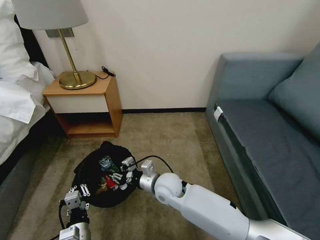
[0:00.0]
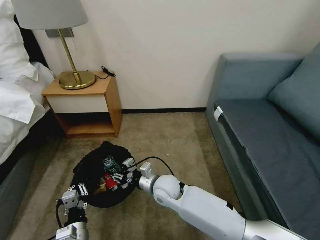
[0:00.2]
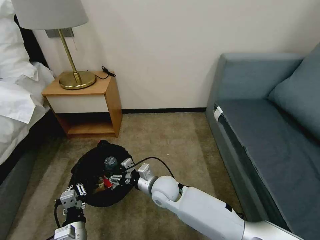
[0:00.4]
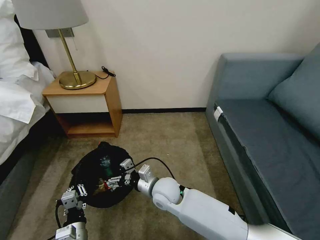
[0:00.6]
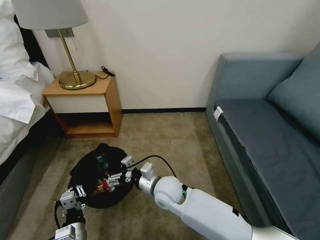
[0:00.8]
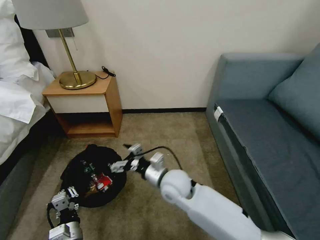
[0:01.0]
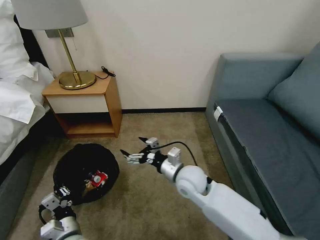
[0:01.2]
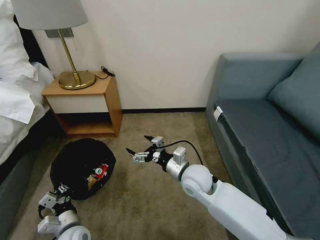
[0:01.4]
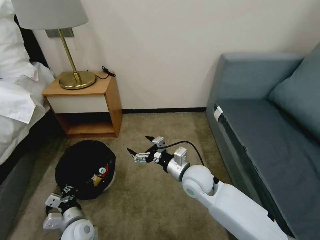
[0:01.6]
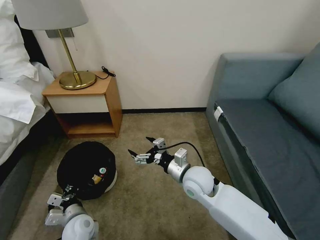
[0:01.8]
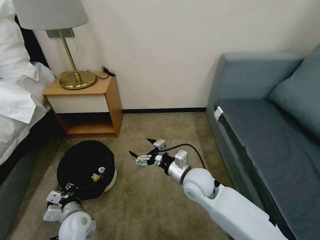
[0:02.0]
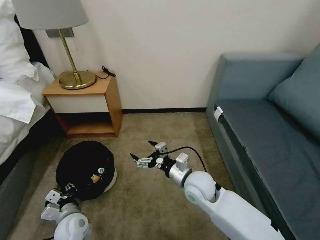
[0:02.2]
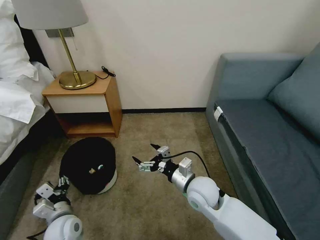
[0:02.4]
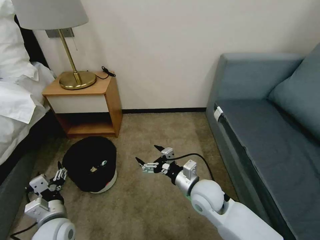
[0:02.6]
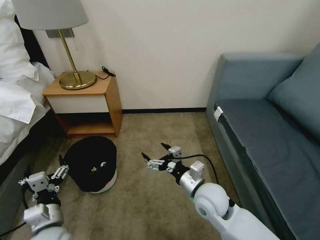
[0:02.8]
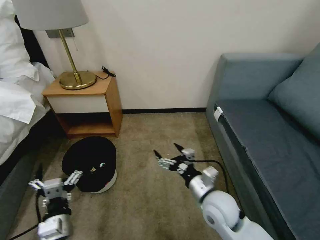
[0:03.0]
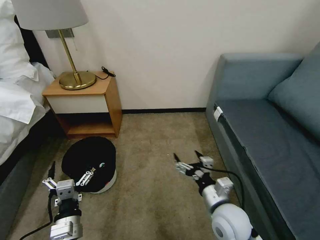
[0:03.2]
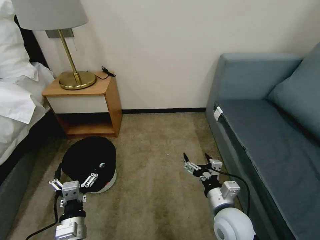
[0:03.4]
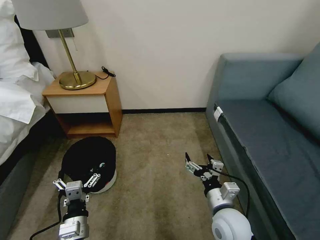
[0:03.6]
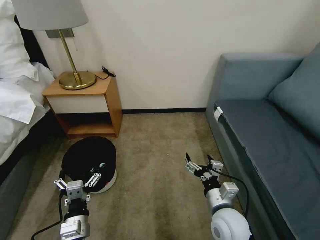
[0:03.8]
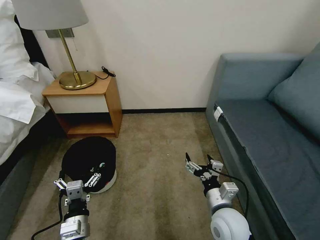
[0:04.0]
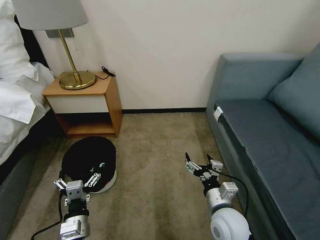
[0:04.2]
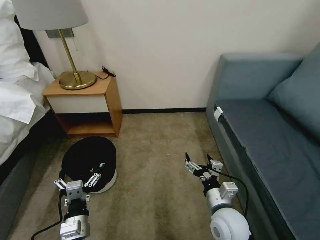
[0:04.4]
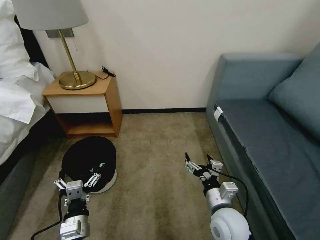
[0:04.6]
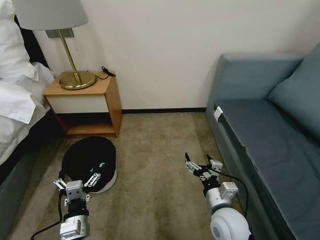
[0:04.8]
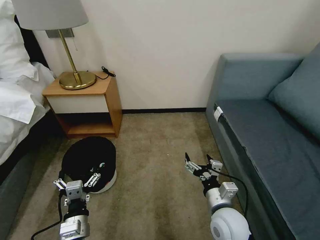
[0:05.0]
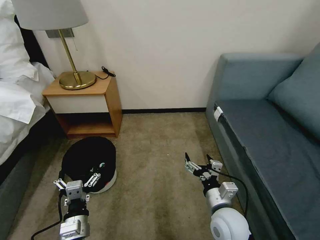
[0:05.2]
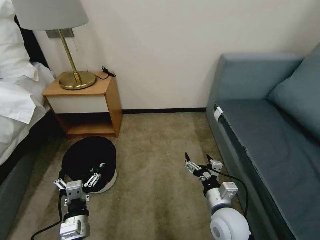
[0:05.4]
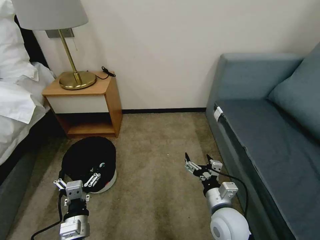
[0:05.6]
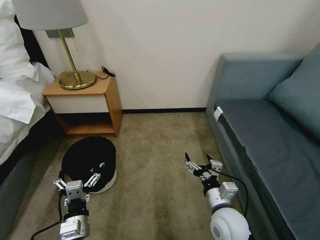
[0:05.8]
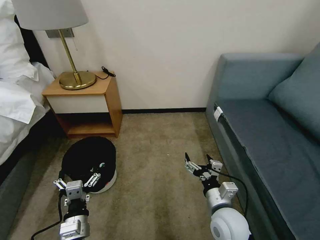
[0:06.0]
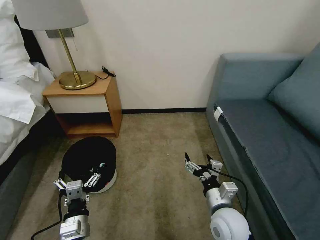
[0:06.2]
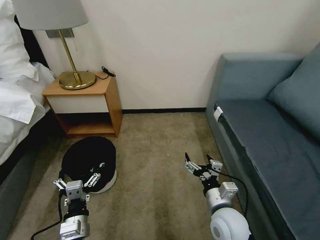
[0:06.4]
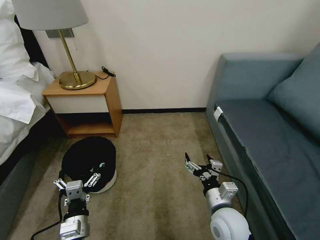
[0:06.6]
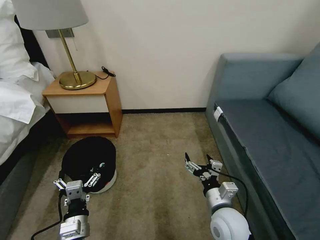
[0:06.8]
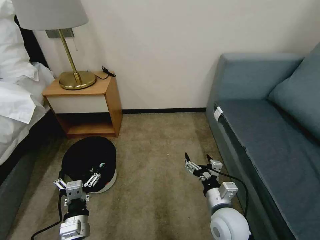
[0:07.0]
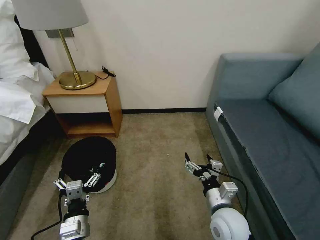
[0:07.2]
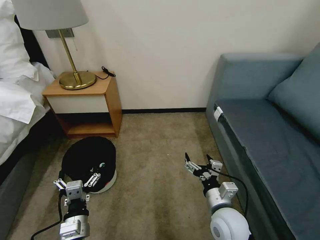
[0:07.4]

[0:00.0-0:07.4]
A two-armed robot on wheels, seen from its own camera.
Task of the whole recording: Pick up the trash bin, then pick up the garbage on the floor and place it into the trash bin.
0:00.0 to 0:01.4: The left gripper shifts by some 5 cm, while the right gripper heads to the right and upward, covering approximately 10 cm, and opens its fingers.
0:01.4 to 0:03.0: The left gripper shifts approximately 10 cm upward, and opens up. Meanwhile the right gripper goes roughly 10 cm backward and to the right.
0:03.0 to 0:04.4: The right gripper moves some 5 cm.
0:04.4 to 0:07.4: Both grippers stay about where they are.

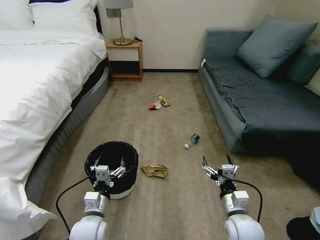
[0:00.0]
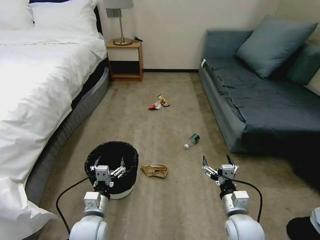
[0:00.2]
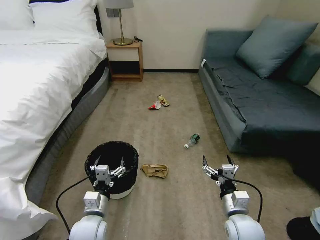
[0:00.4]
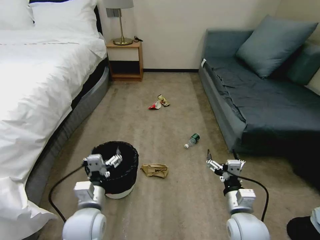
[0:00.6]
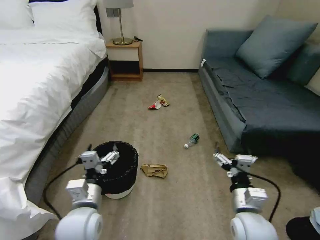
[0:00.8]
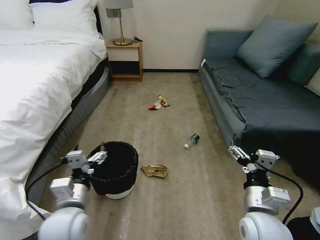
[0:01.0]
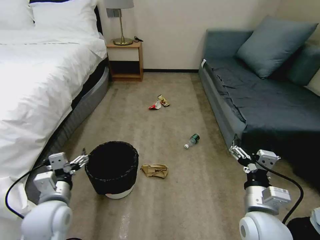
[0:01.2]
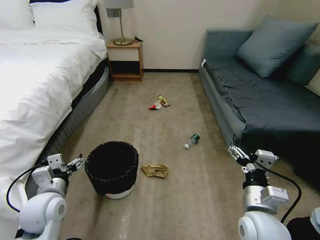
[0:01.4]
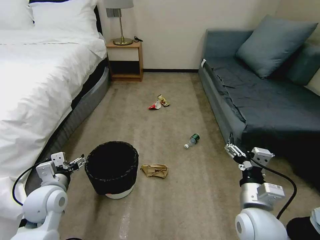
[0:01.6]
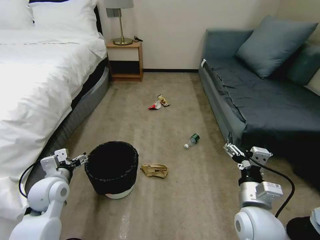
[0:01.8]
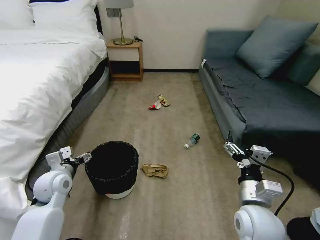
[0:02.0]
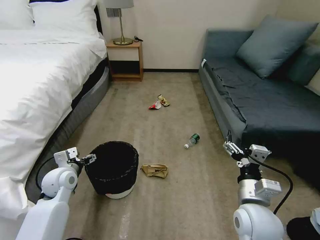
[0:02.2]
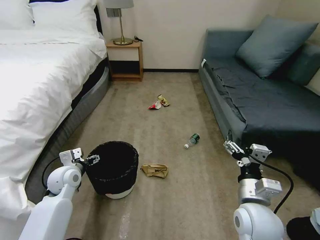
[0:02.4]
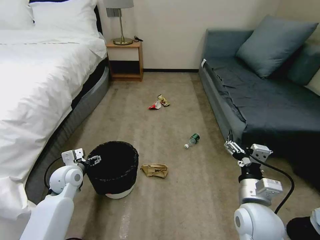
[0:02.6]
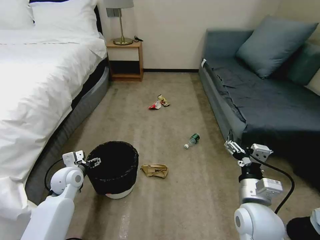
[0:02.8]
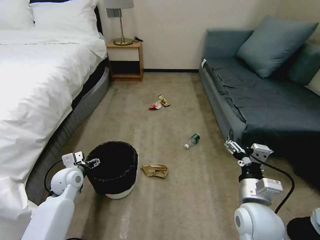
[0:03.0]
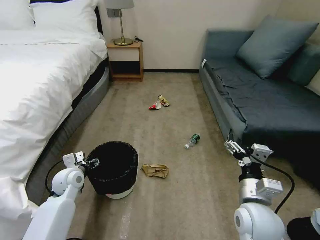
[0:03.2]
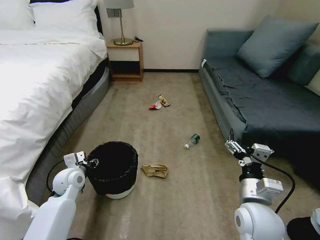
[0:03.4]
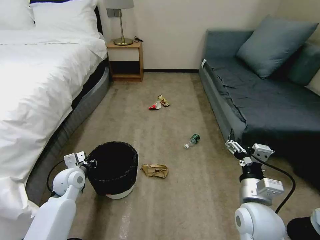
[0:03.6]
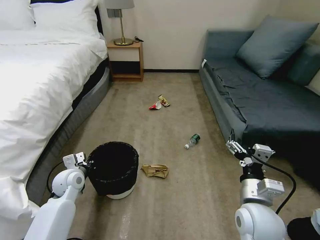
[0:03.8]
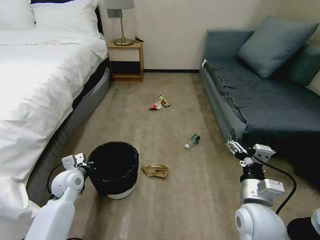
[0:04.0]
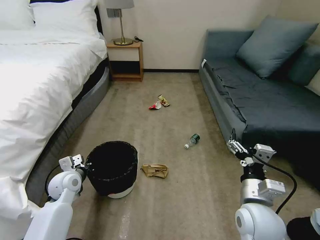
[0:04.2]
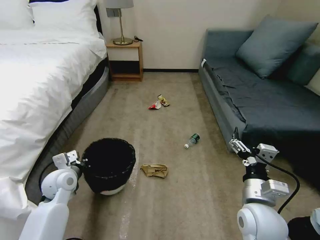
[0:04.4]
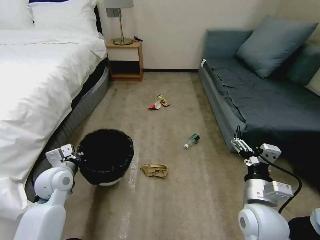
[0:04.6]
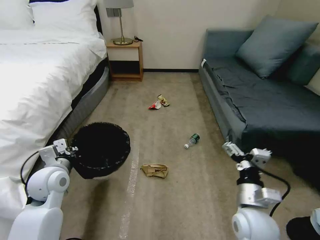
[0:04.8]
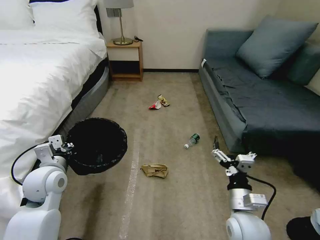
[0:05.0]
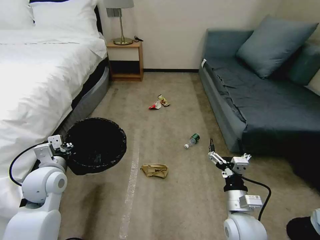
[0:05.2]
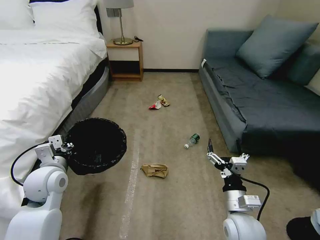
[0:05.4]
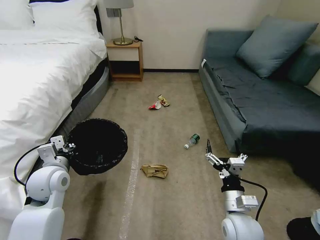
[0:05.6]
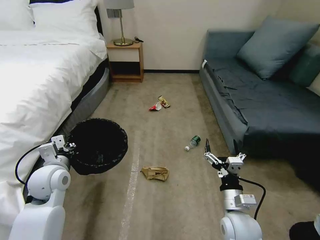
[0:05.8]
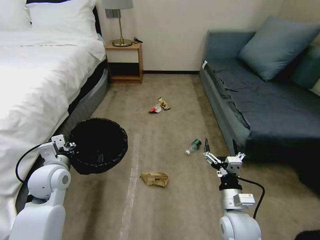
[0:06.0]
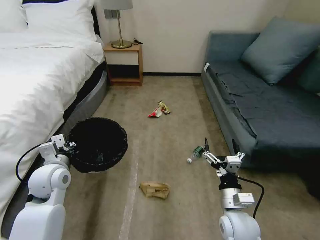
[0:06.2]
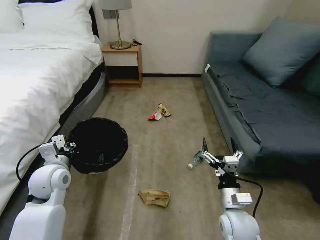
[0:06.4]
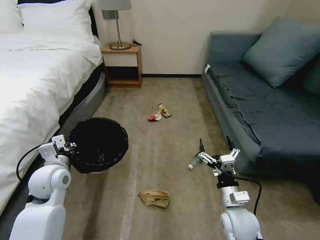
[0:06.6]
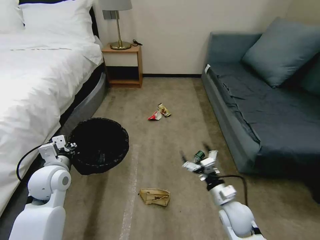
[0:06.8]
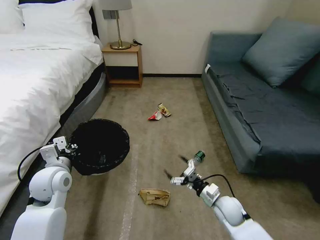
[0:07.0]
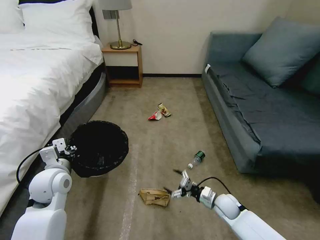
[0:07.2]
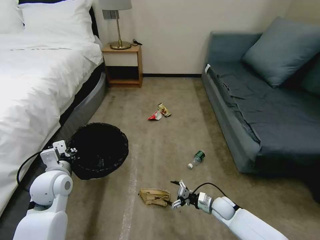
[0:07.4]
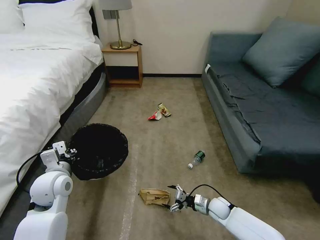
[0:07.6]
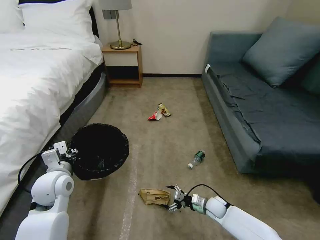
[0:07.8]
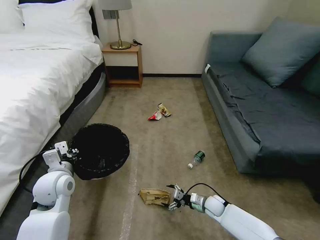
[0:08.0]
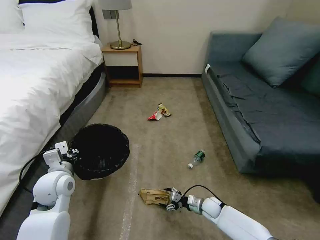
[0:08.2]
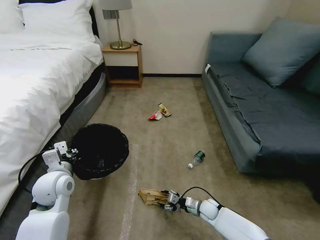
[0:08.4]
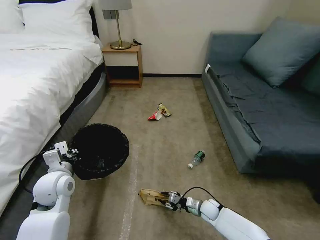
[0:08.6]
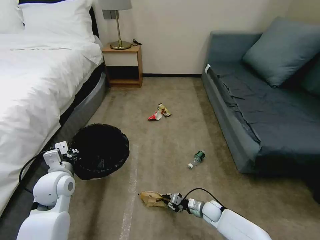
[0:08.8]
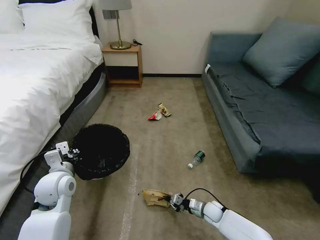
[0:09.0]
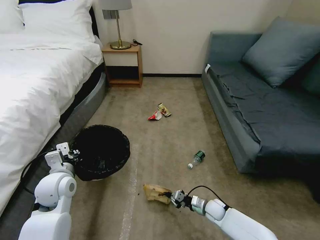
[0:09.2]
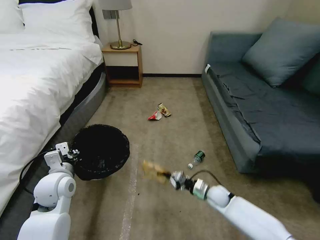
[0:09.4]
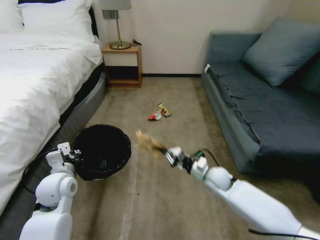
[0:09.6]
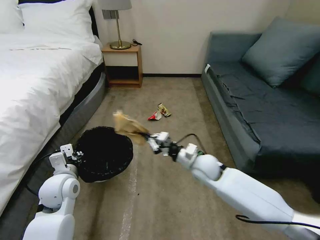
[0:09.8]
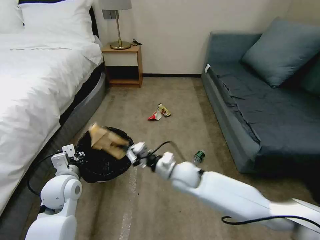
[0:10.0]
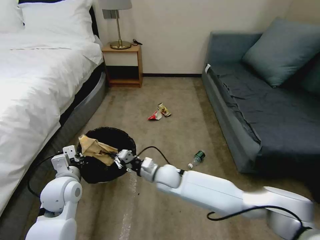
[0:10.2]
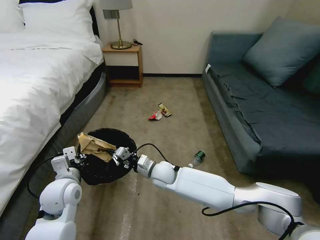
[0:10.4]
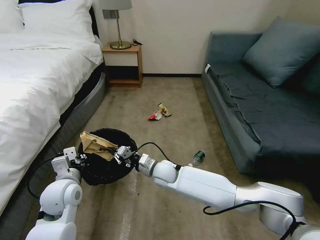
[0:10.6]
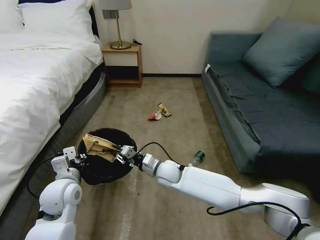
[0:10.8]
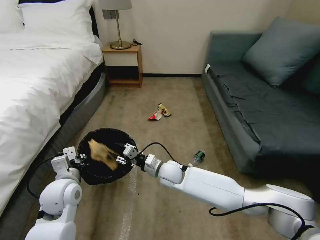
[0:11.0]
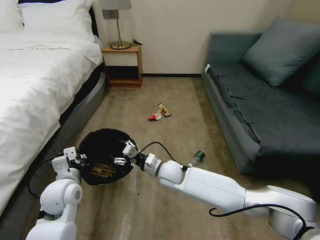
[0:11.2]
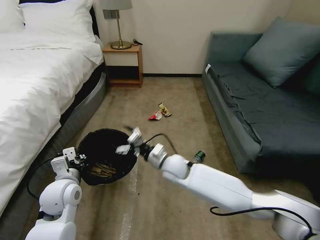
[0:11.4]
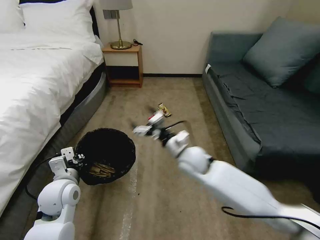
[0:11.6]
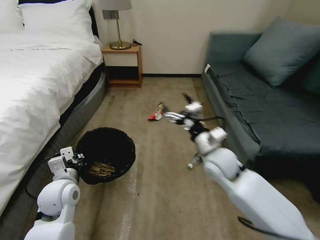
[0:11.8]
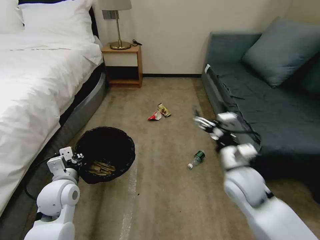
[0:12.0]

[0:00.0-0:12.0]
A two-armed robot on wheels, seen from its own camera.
Task of the whole recording: Pick up the trash bin, then pick up the garbage on the floor and place it into the trash bin.
0:01.6 to 0:03.0: The left gripper travels forward and downward by about 10 cm.
0:03.0 to 0:04.4: The left gripper closes up.
0:04.4 to 0:06.0: The right gripper heads downward, covering approximately 10 cm; the left gripper travels upward by about 5 cm.
0:06.0 to 0:07.6: The right gripper goes some 25 cm downward and forward.
0:07.6 to 0:09.0: The right gripper closes up.
0:09.0 to 0:10.4: The right gripper moves to the left and upward, some 30 cm.
0:10.4 to 0:12.0: The right gripper heads to the right, upward and backward, covering roughly 30 cm, and opens its fingers.

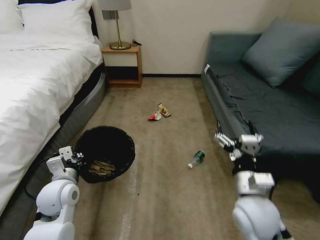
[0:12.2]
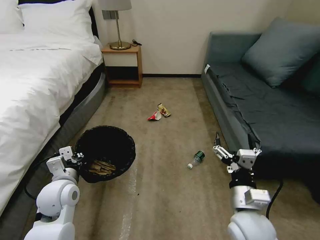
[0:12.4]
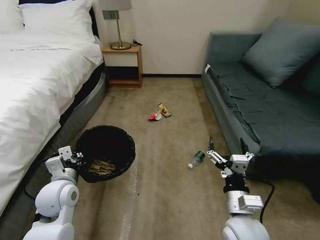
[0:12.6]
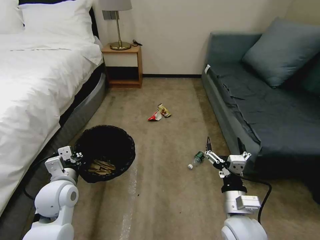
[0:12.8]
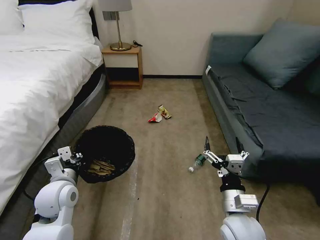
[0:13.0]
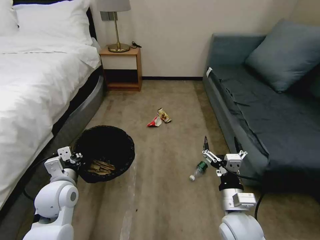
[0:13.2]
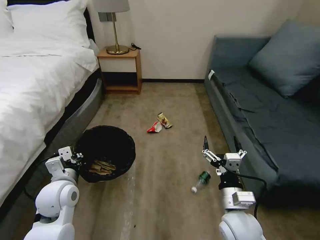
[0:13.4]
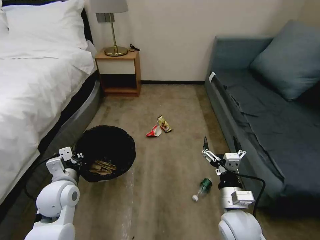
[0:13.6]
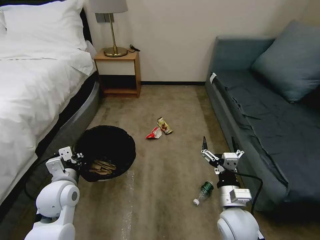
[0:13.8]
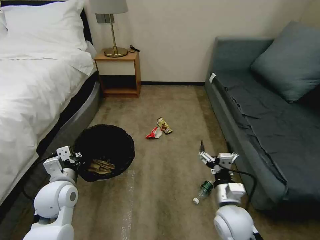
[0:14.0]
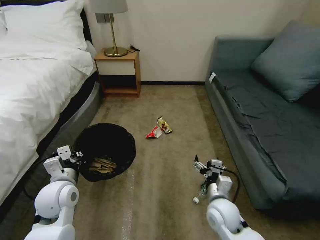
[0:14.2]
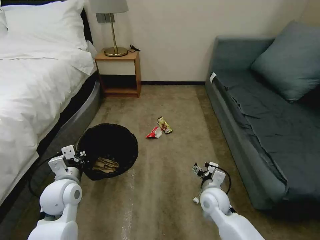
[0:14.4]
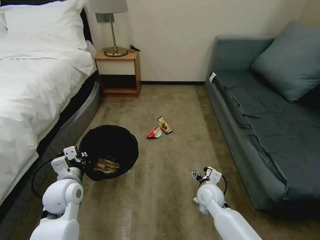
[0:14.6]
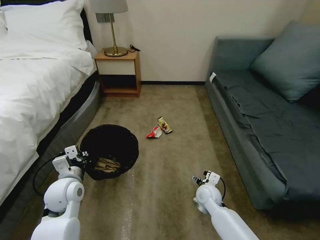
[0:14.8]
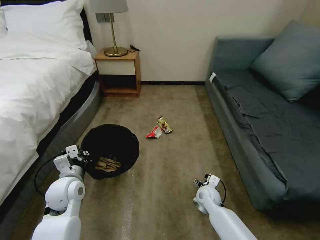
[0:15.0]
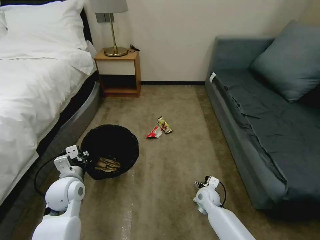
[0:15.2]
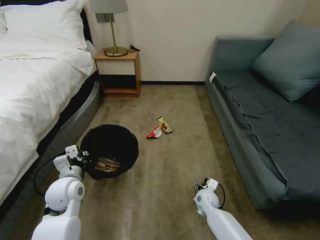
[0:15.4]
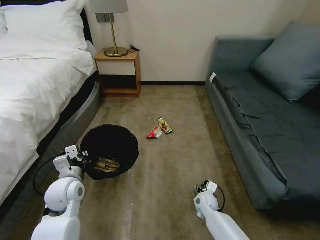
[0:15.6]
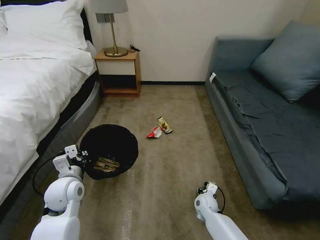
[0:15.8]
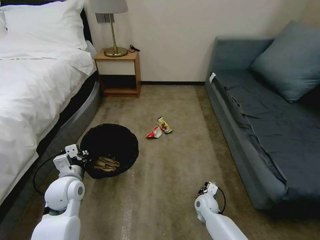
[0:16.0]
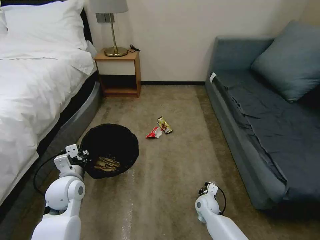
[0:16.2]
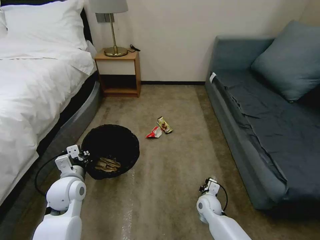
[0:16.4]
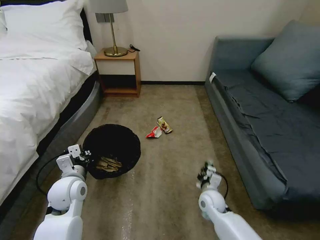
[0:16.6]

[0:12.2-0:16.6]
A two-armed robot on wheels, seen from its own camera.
Task of the whole recording: Pick up the trash bin, then pick up the garbage on the floor and place it into the trash bin.
0:12.2 to 0:13.6: The right gripper travels downward by about 5 cm.
0:13.6 to 0:15.2: The right gripper heads downward and forward, covering some 25 cm.
0:15.2 to 0:16.6: The right gripper moves some 5 cm, and closes its fingers.
